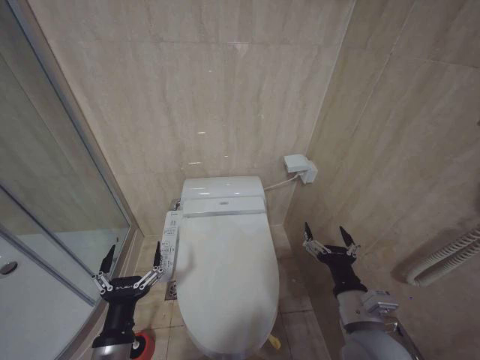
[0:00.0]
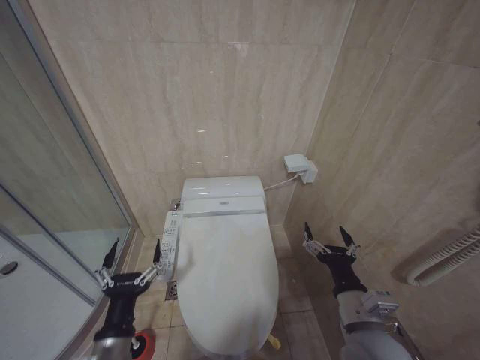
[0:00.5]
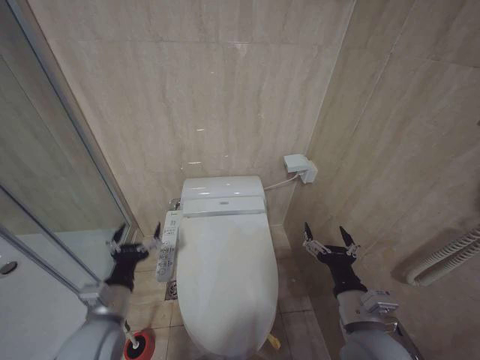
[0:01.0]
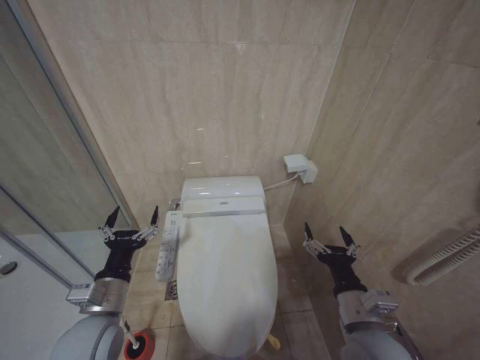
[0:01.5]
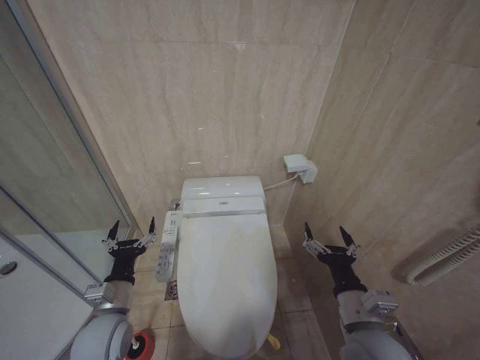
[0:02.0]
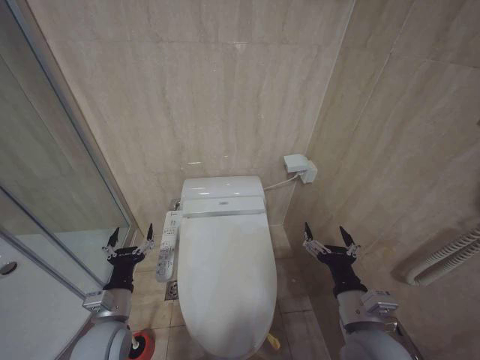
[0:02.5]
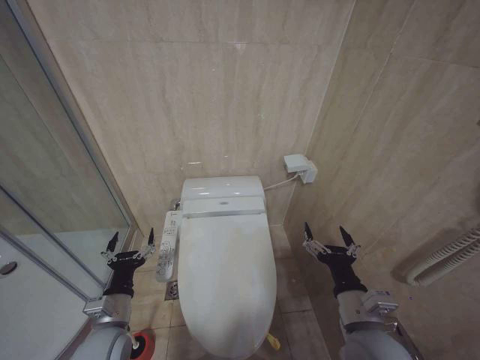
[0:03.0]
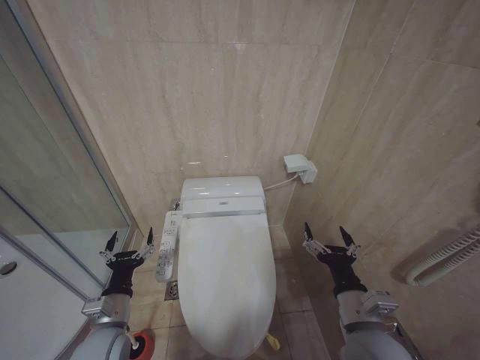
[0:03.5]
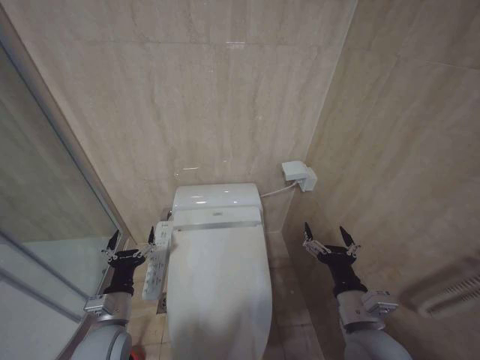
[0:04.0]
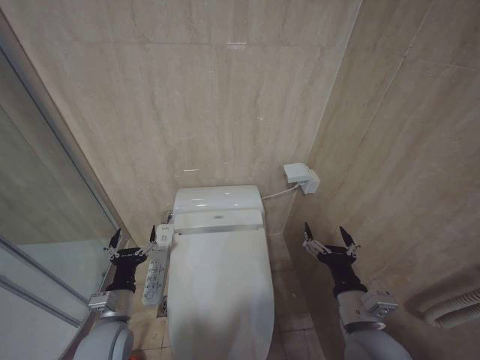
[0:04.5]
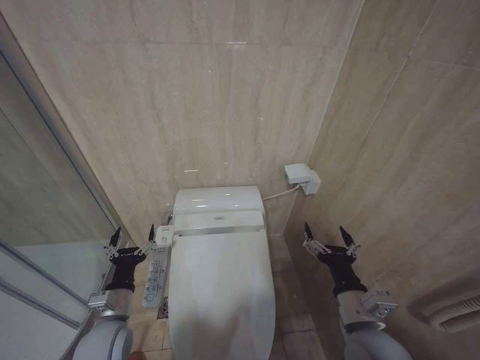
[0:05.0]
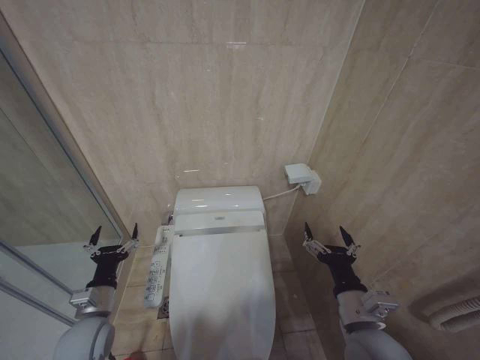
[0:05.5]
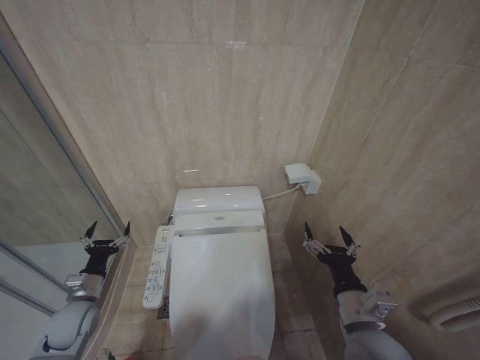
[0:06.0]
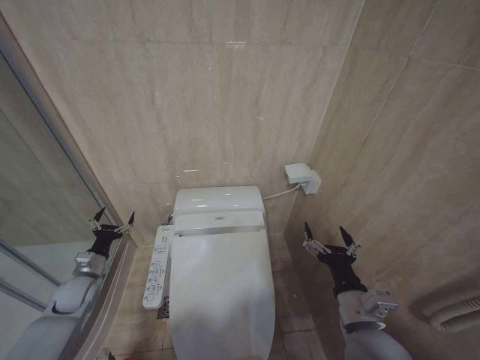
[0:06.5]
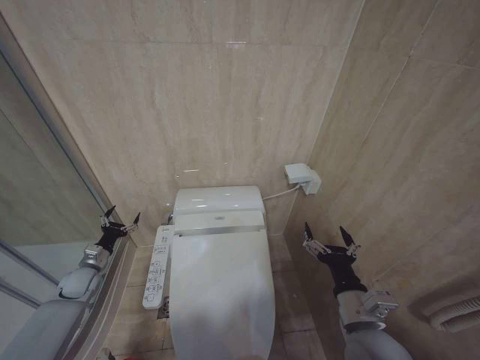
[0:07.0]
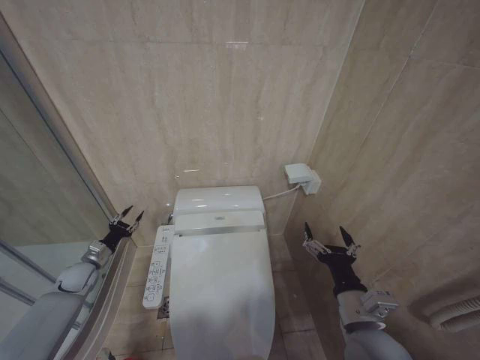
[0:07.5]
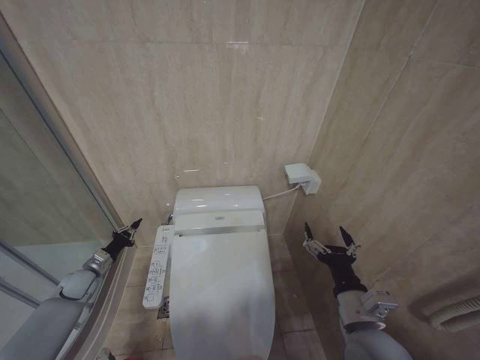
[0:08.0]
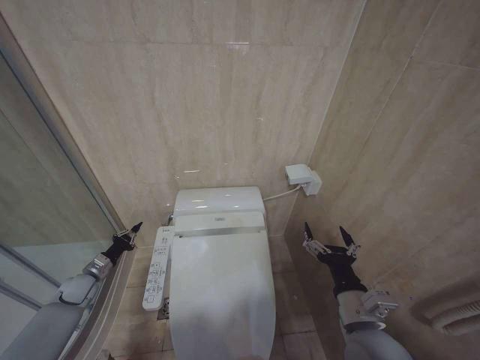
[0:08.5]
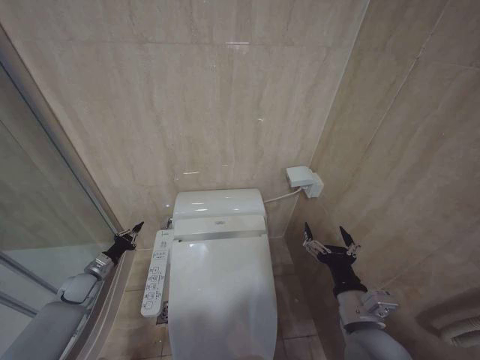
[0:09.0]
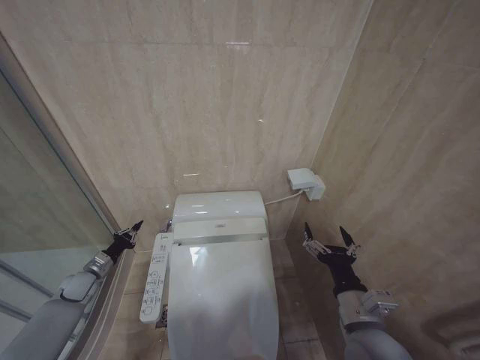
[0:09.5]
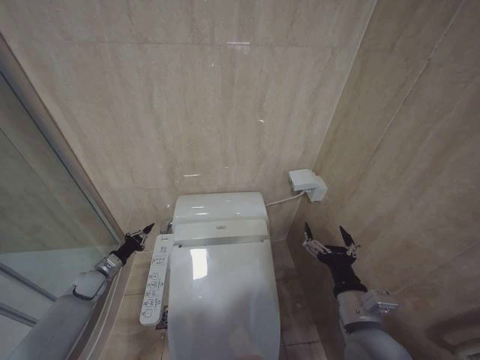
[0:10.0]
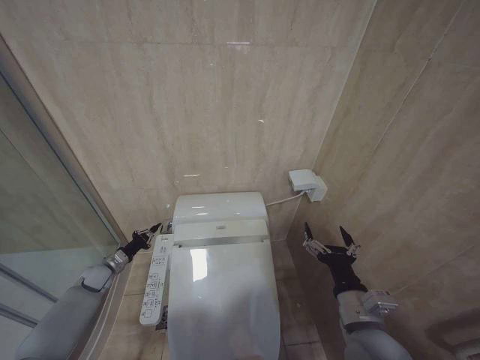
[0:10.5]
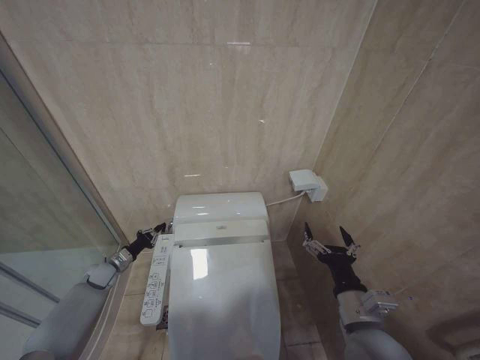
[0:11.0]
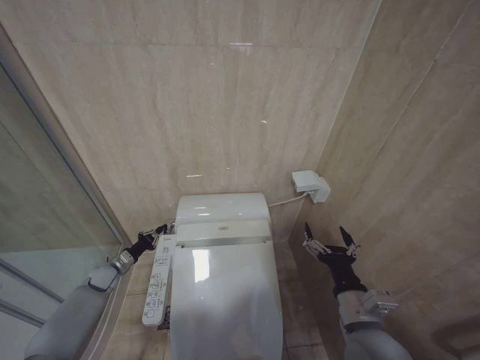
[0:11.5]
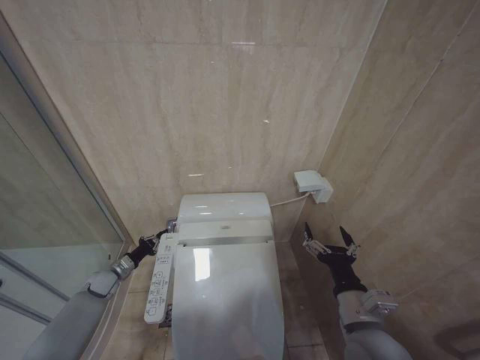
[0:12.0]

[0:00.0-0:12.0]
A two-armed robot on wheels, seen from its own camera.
Task of the whole recording: Open the toilet lid, clean the toilet bowl with a toilet brush, close the toilet lid, and flush.
0:00.0 to 0:02.0: The left gripper moves forward and to the left, approximately 15 cm.
0:02.0 to 0:04.0: The grippers move only a little.
0:04.0 to 0:06.0: The left gripper heads to the left and forward, covering roughly 15 cm.
0:06.0 to 0:08.0: The left gripper shifts about 15 cm forward and to the left, and closes up.
0:08.0 to 0:10.0: The grippers stay close to where they were, moving slightly.
0:10.0 to 0:12.0: The grippers stay close to where they were, moving slightly.

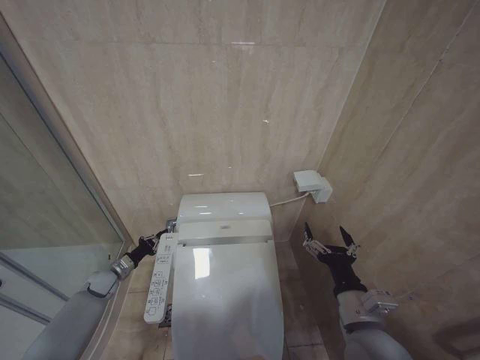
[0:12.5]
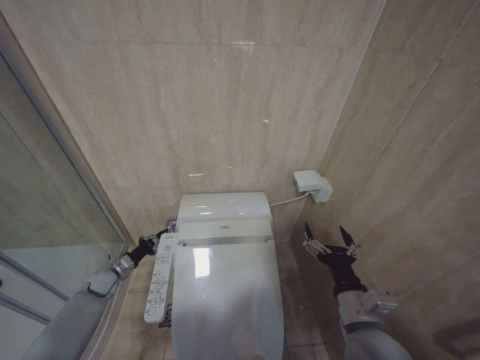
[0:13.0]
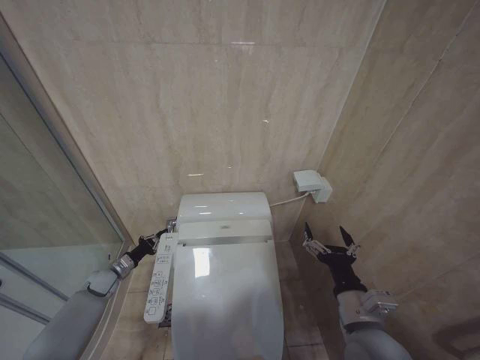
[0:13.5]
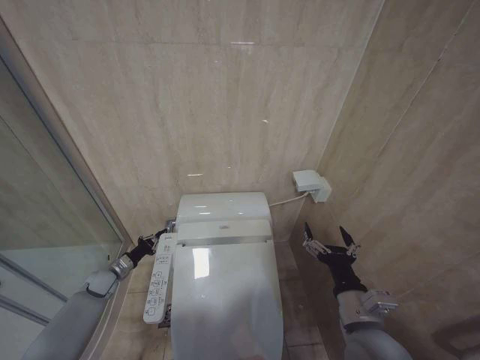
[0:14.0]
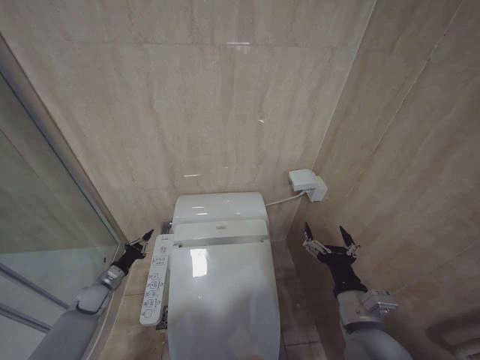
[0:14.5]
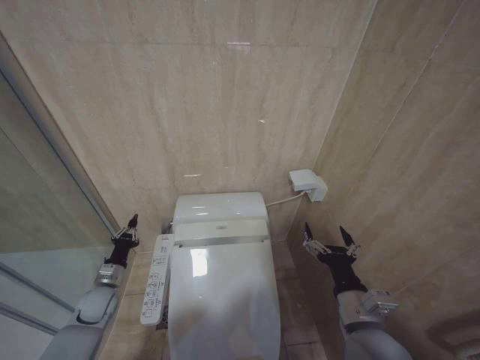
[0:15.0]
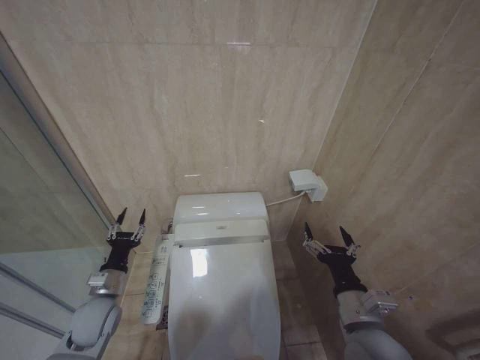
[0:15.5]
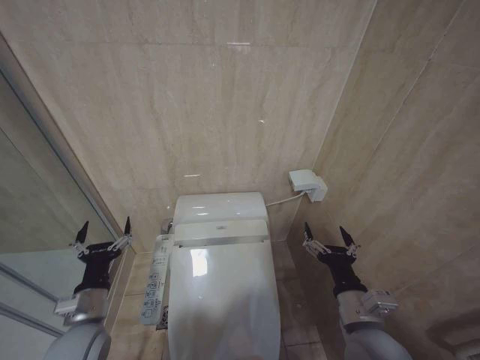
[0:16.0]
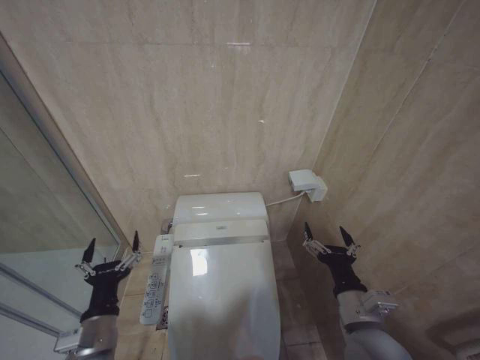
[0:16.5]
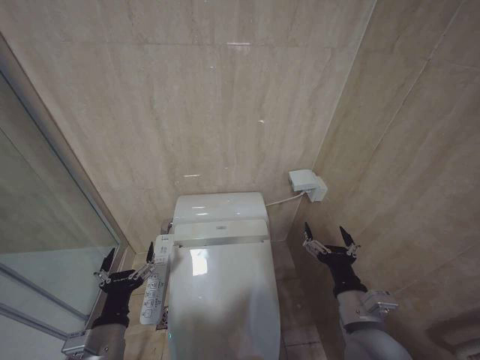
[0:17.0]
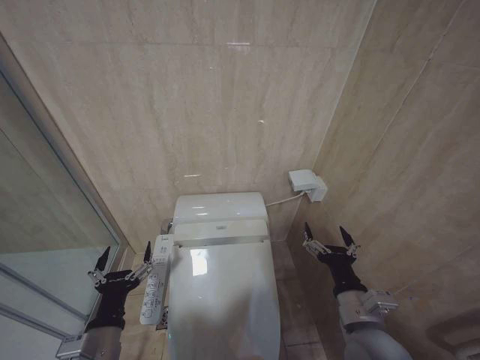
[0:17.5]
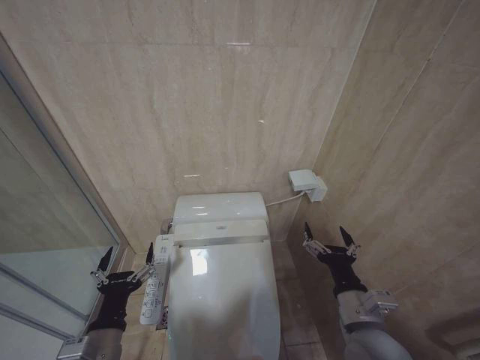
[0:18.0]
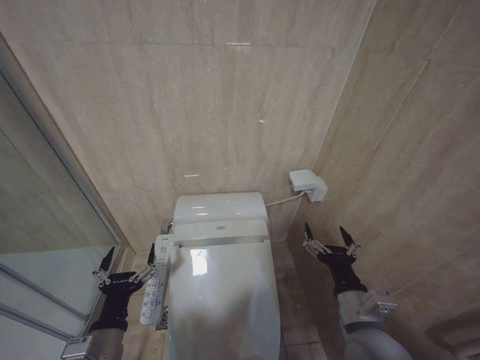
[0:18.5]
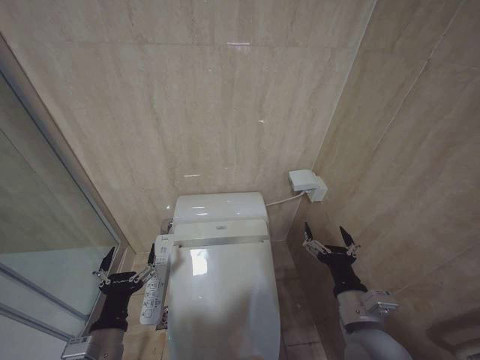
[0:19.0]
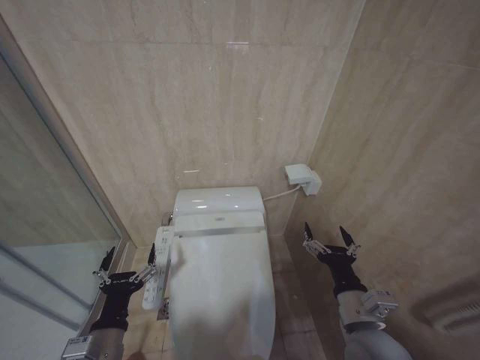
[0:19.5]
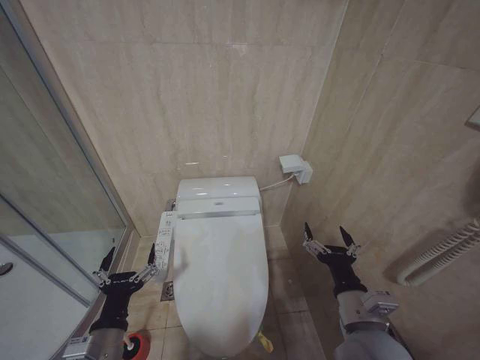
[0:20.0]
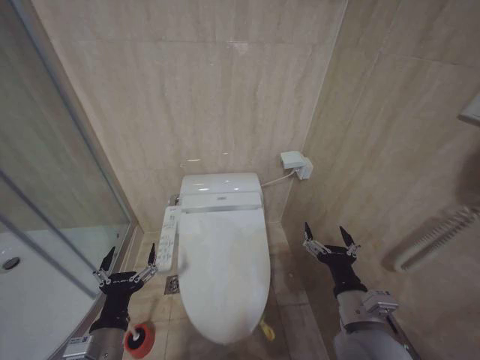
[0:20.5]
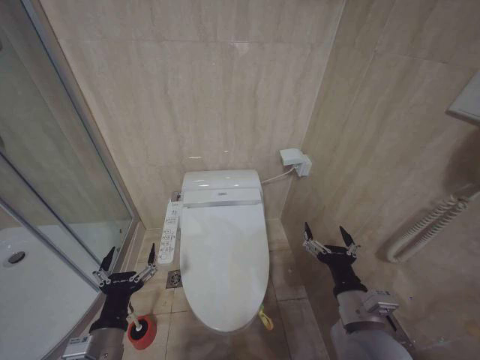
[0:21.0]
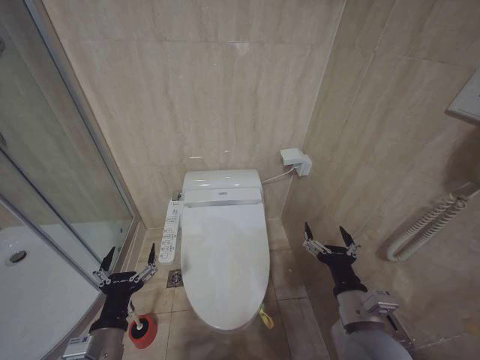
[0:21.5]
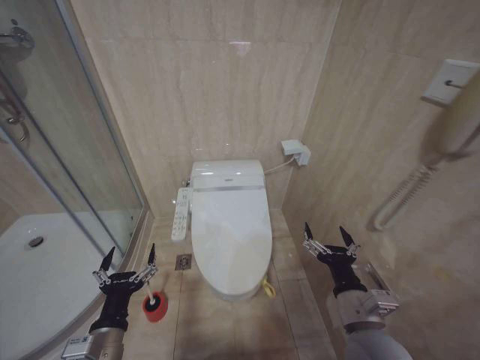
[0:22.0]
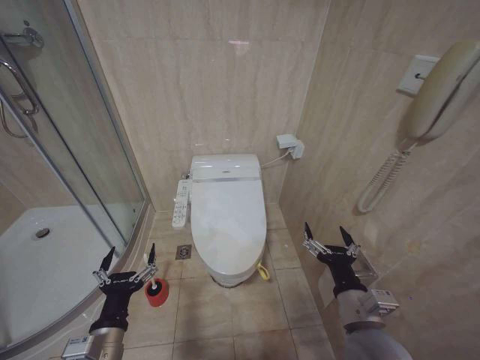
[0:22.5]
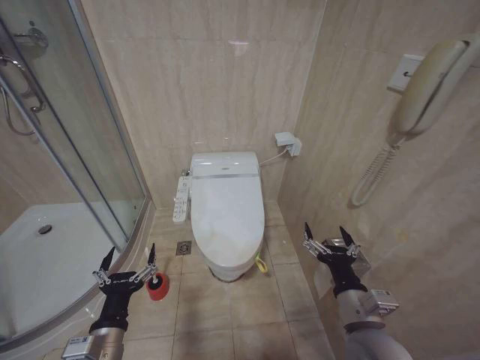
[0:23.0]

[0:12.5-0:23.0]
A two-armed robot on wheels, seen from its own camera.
Task of the whole recording: Open the toilet lid, clean the toilet bowl with a toilet brush, close the toilet lid, and flush.
0:12.5 to 0:14.5: The grippers stay close to where they were, moving slightly.
0:14.5 to 0:16.5: The left gripper heads backward, upward and to the right, covering some 30 cm, and opens its fingers.
0:16.5 to 0:19.0: The grippers move only a little.
0:19.0 to 0:21.0: The two grippers keep their place.

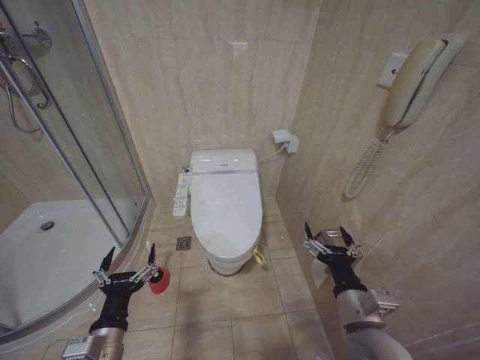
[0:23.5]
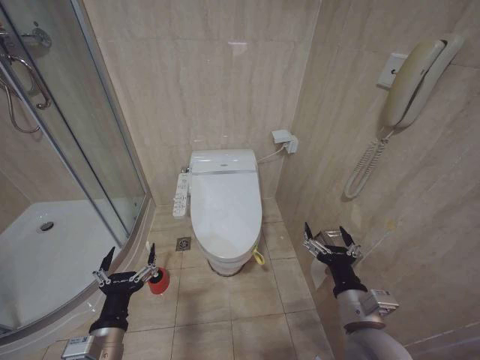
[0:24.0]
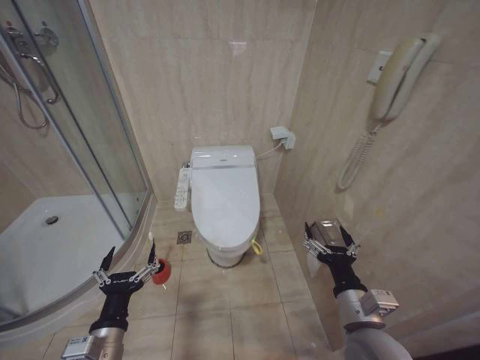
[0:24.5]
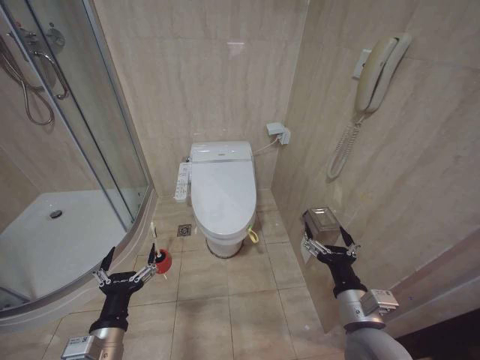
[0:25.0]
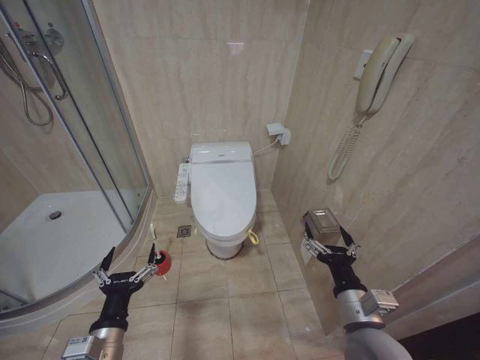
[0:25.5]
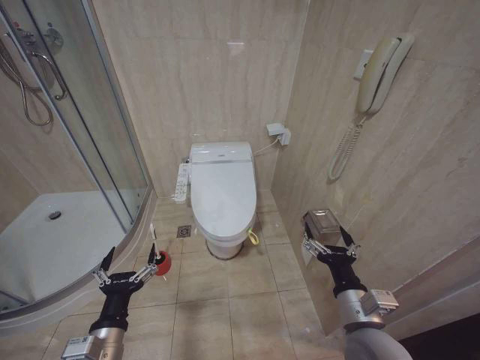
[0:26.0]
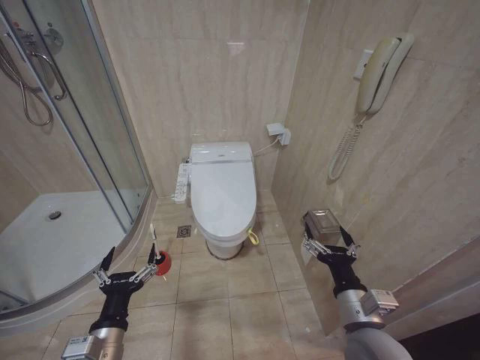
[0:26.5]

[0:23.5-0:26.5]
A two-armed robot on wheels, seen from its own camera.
Task of the whole recording: Open the toilet lid, clean the toilet bowl with a toilet brush, close the toilet lid, and flush.
0:23.5 to 0:26.5: Both grippers stay about where they are.
